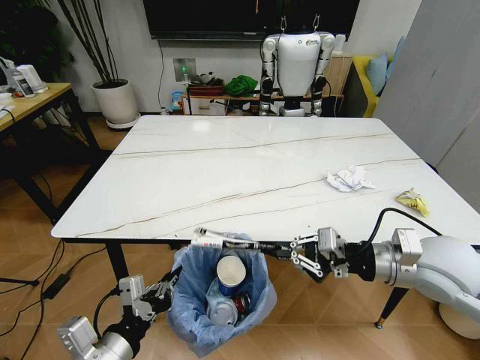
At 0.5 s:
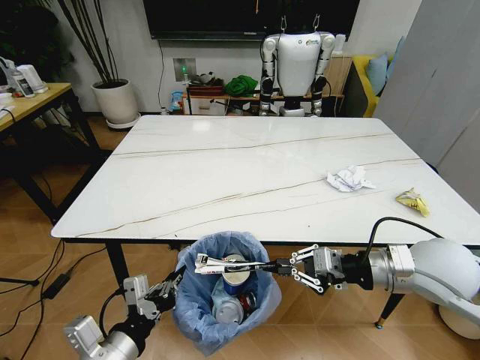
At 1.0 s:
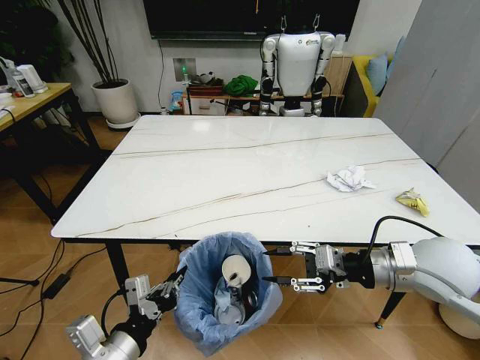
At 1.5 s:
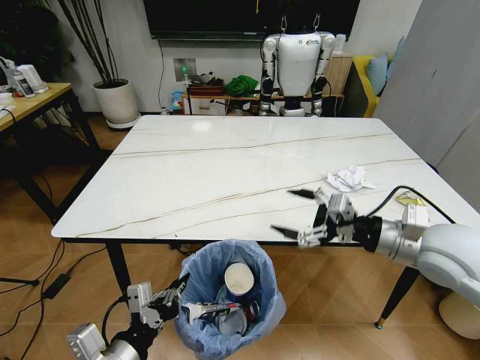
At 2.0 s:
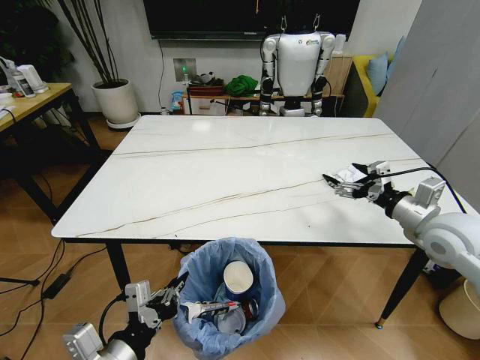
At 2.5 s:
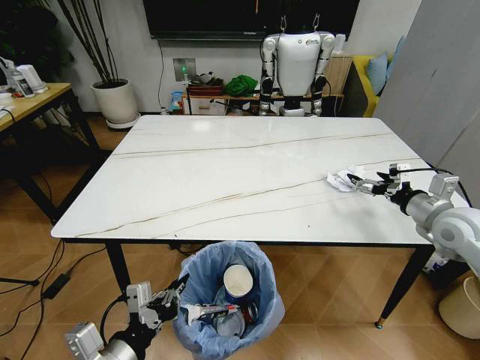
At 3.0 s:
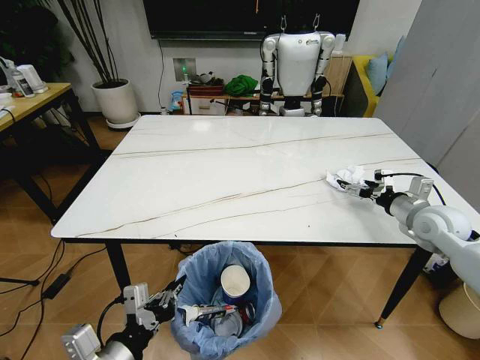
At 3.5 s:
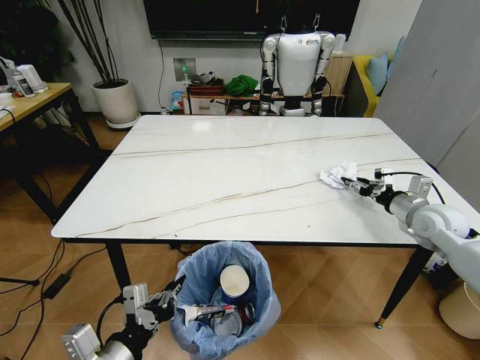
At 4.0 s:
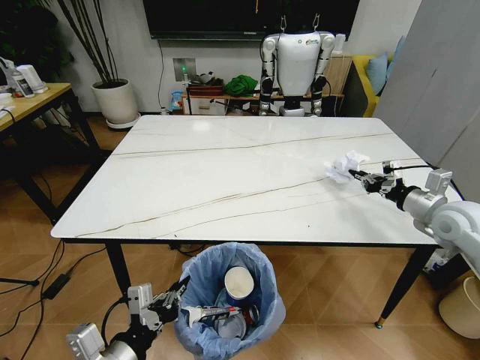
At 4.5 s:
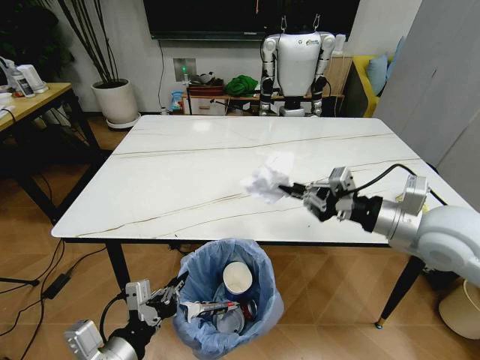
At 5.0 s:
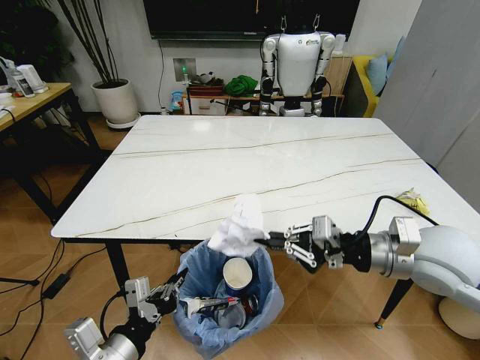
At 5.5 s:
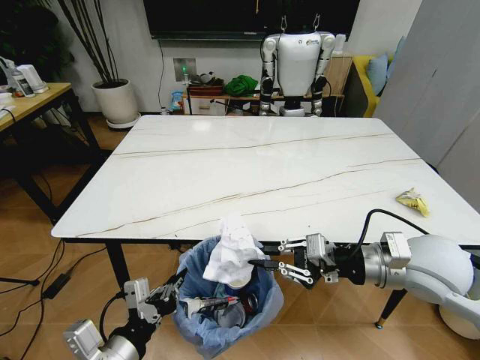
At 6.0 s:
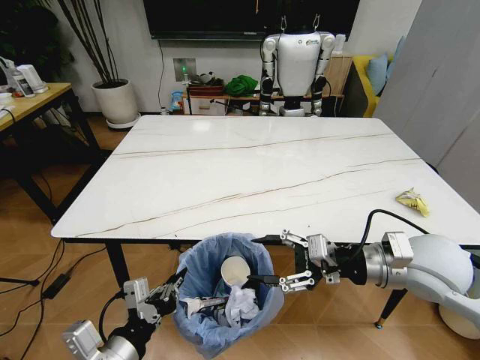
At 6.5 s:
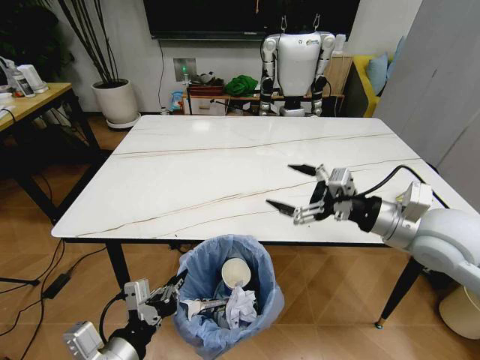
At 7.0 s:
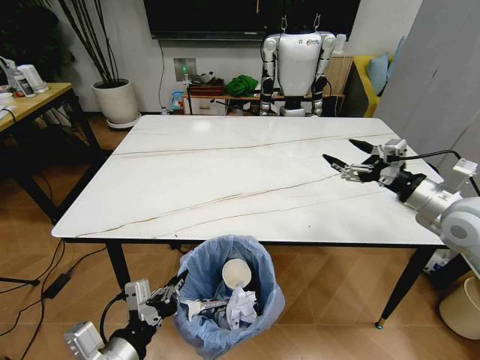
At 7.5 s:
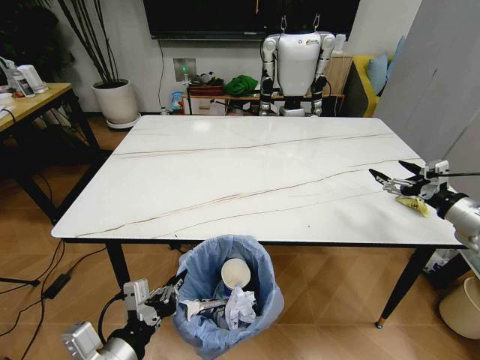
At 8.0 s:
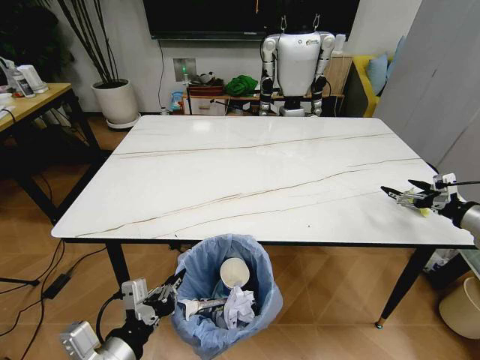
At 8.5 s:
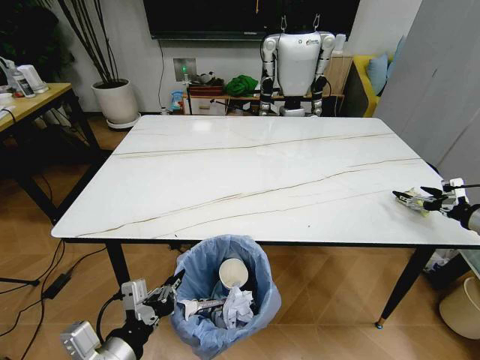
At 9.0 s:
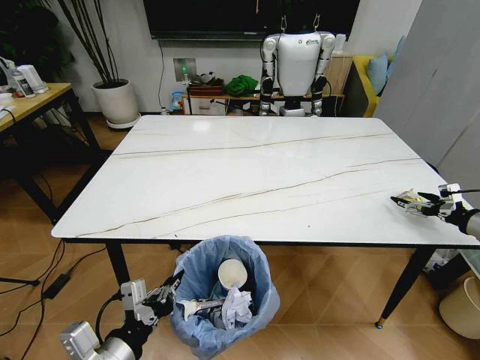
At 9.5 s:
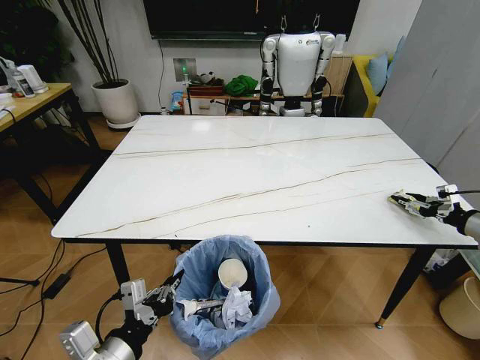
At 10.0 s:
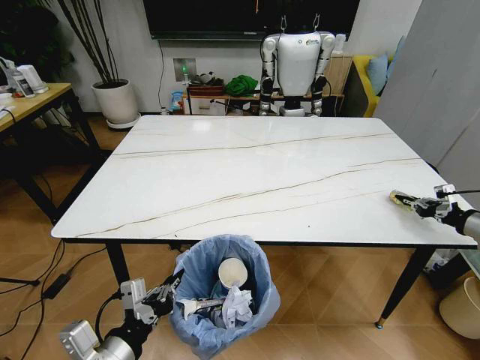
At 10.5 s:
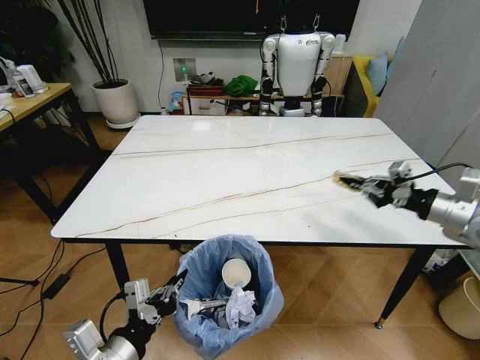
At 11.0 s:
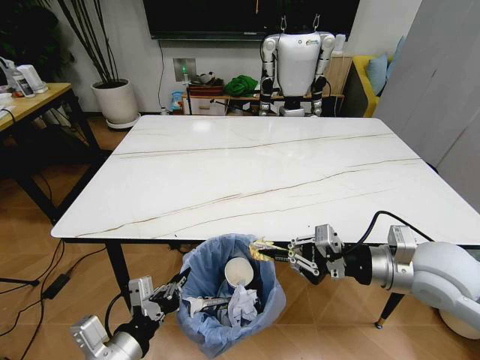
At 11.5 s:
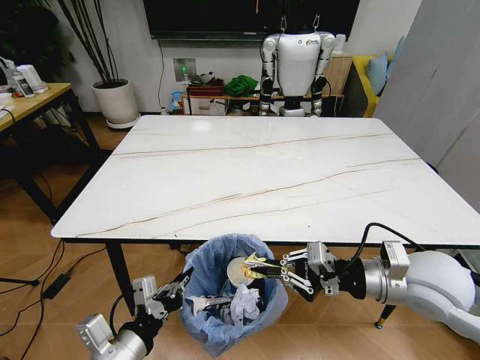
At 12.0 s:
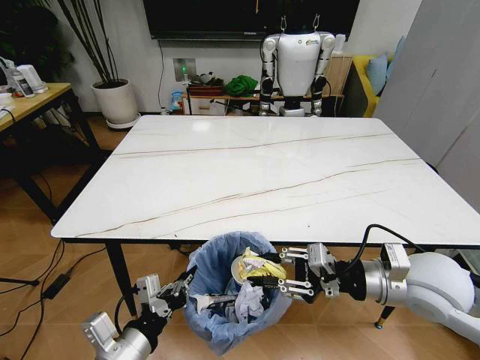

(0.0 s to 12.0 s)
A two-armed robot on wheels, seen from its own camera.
Task of the whole recording: Pick up the trash bin and place the trash from the table into it.
0.0 s - 2.0 s: The right gripper moves to the right and forward, approximately 10 cm, and opens up.
2.0 s - 4.0 s: The right gripper shifts some 5 cm to the right, and closes its fingers.
4.0 s - 6.0 s: The right gripper is displaced to the left and backward by about 20 cm, and opens.
6.0 s - 8.0 s: The right gripper moves to the right, some 25 cm, and opens.
8.0 s - 10.0 s: The right gripper closes.
10.0 s - 12.0 s: The right gripper heads to the left, covering roughly 30 cm.

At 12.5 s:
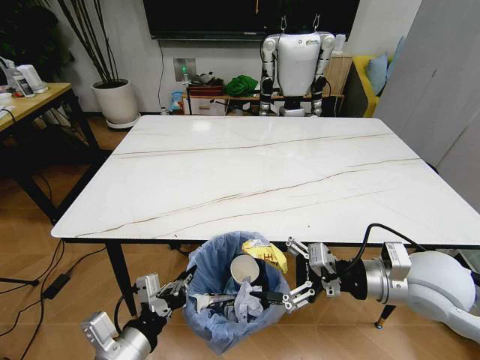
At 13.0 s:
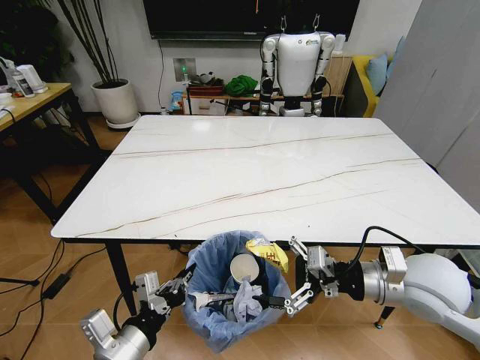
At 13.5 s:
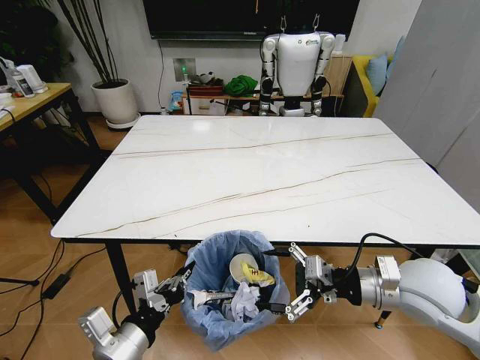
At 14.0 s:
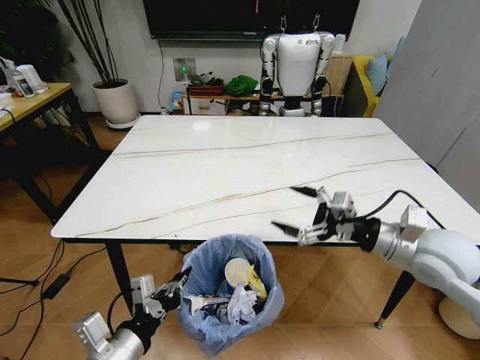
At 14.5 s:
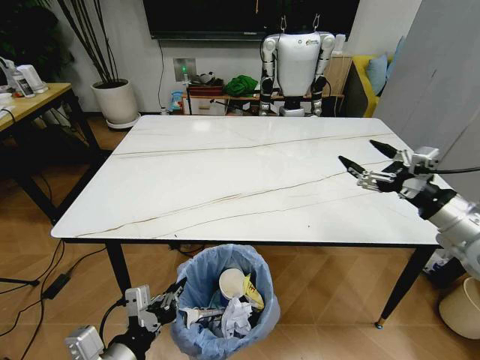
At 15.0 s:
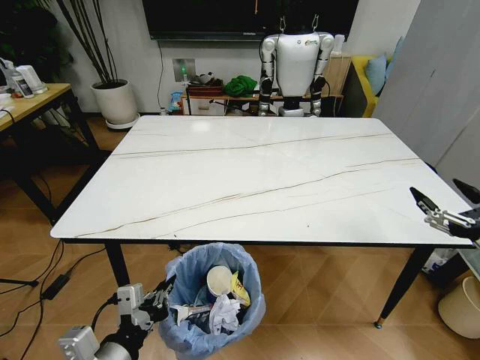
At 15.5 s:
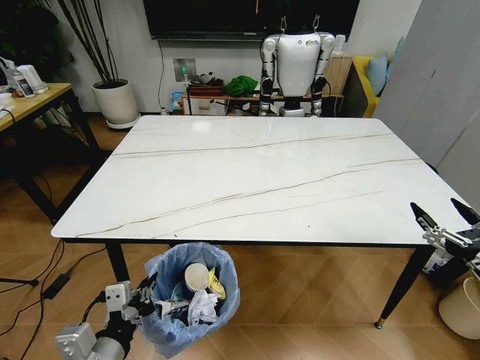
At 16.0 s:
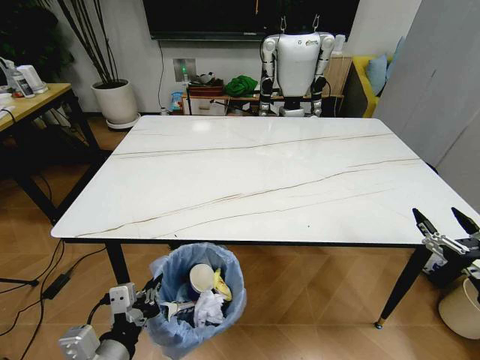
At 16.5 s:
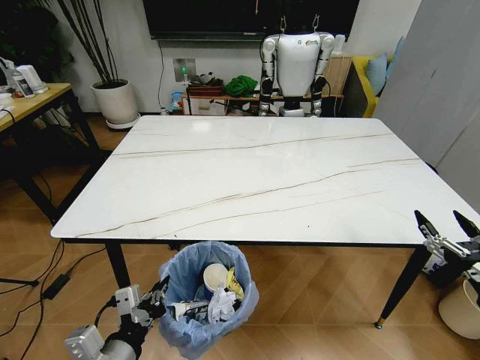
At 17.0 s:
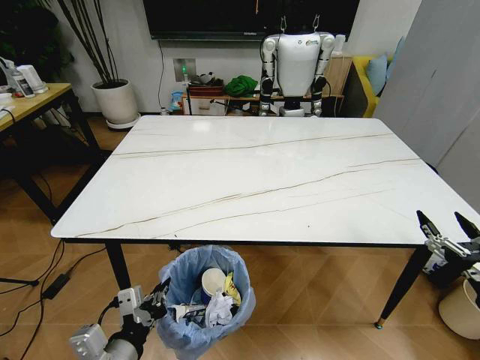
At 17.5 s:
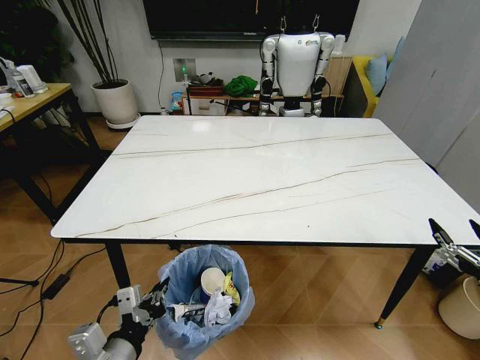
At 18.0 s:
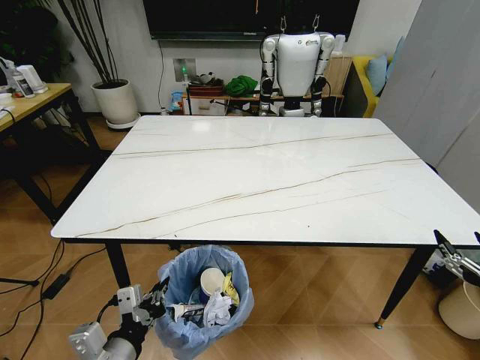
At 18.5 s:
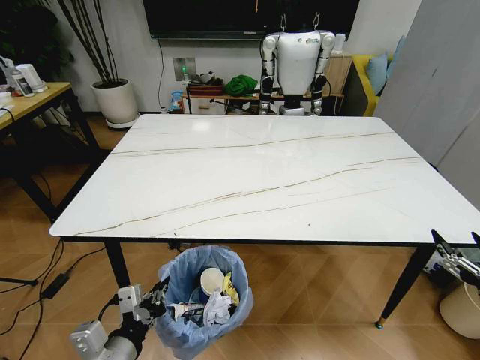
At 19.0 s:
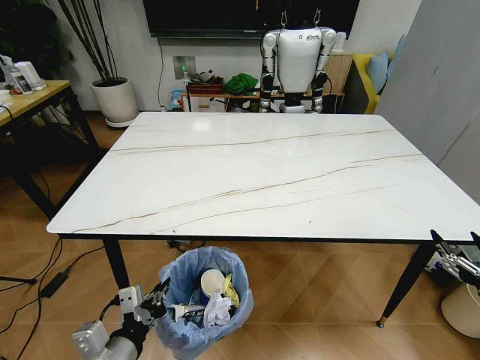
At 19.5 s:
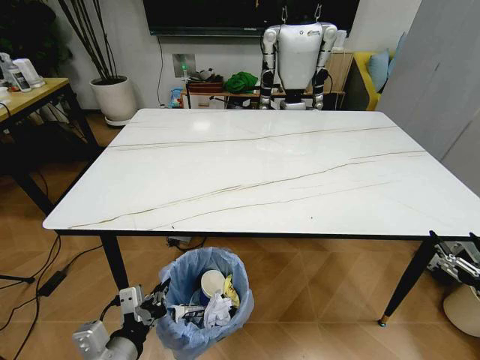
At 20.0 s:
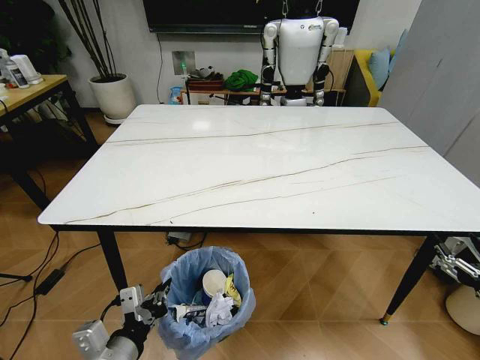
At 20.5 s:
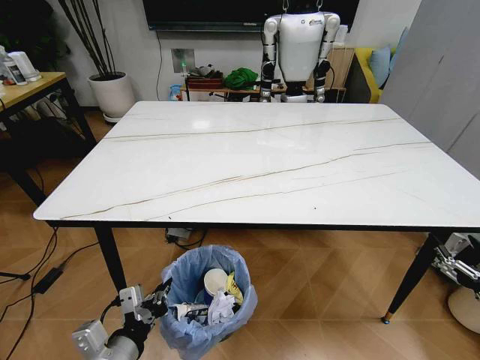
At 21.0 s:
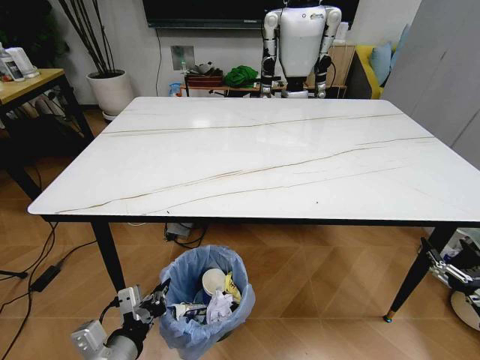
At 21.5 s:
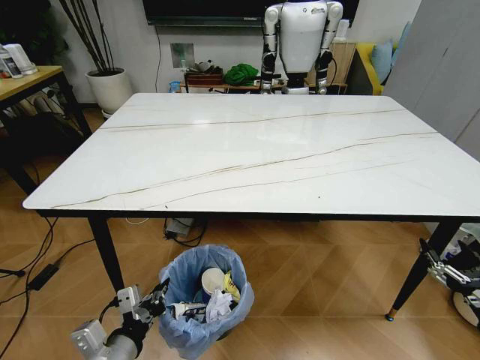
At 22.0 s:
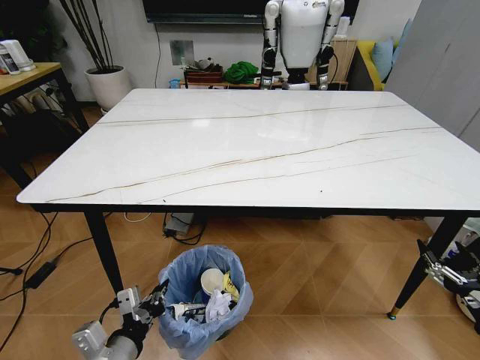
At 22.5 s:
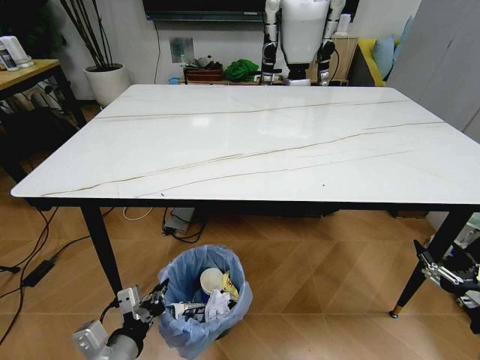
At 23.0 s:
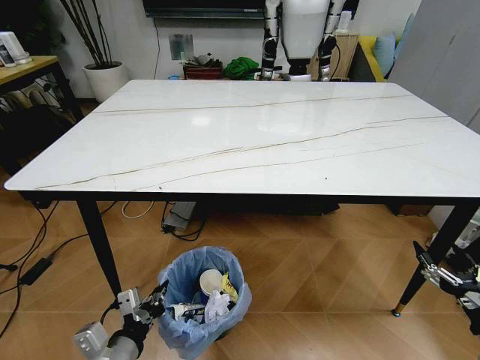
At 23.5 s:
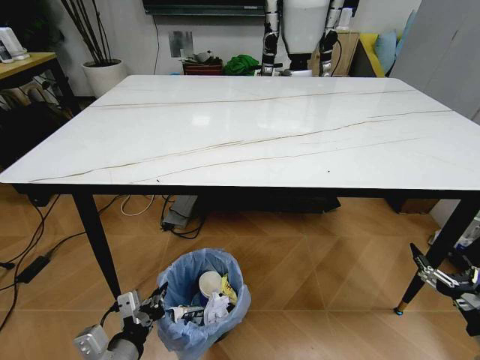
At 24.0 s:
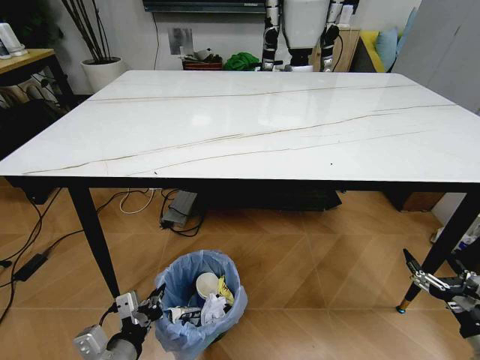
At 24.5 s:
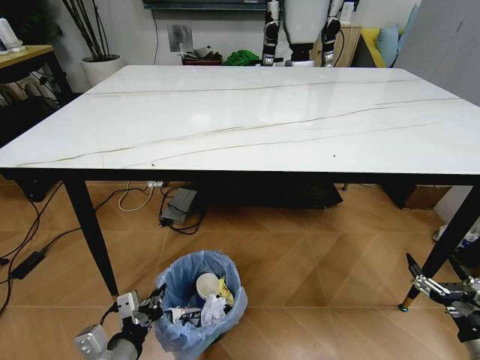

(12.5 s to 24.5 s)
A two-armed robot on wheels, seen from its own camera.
Task of the whole recording: Pick up the trash bin and place the trash from the table into it.
12.5 s - 14.5 s: The right gripper shifts roughly 10 cm to the right.
14.5 s - 16.5 s: The right gripper is displaced backward and downward by approximately 20 cm.
16.5 s - 18.5 s: The right gripper ends up some 5 cm from where it was.

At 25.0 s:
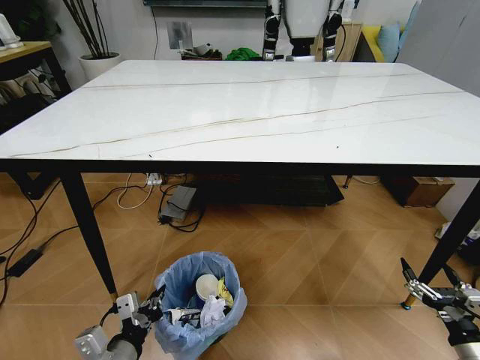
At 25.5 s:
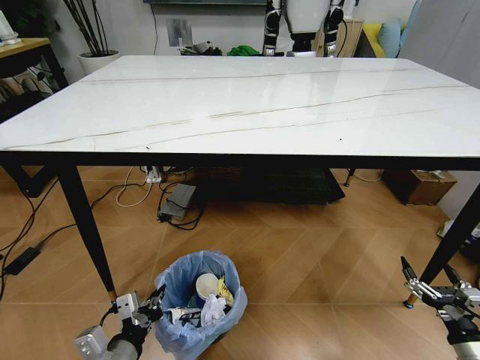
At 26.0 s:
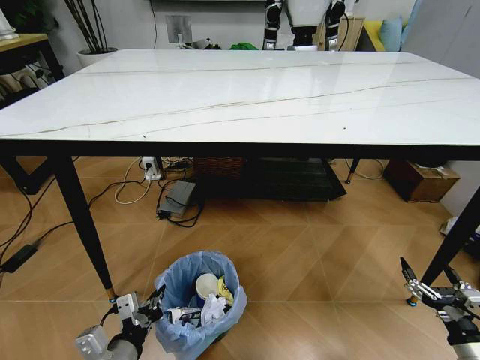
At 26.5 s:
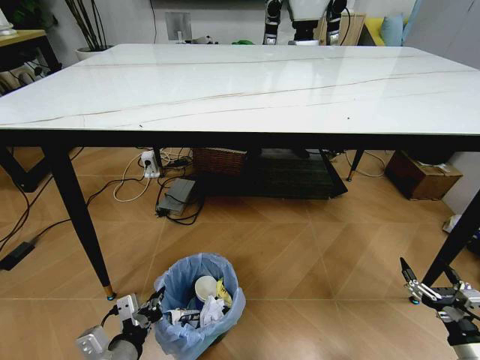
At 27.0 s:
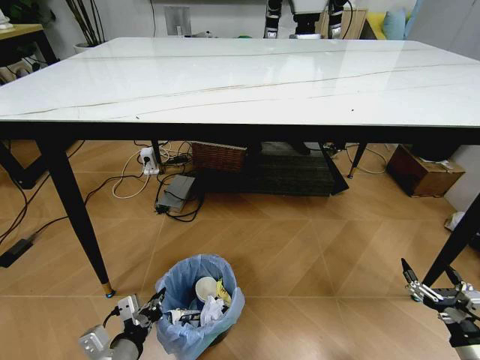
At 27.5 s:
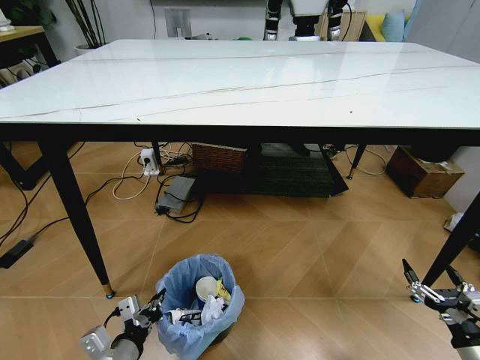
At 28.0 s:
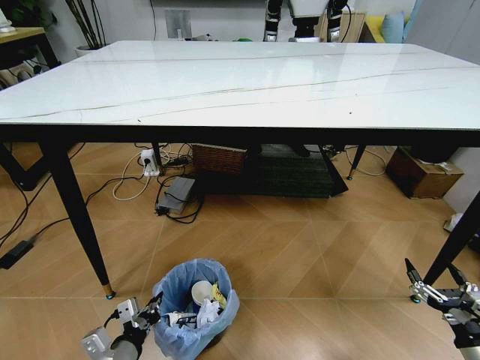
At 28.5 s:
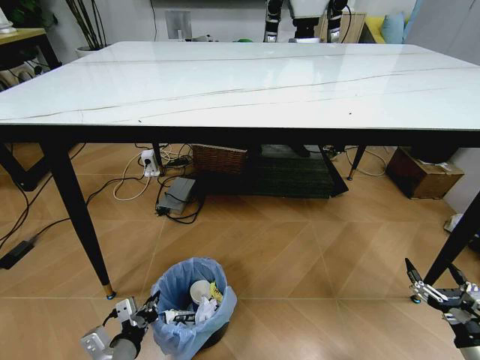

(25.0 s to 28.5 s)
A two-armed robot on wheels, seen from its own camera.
Task of the whole recording: Pick up the trash bin and place the trash from the table into it.
27.0 s - 28.5 s: The grippers make only small movements.
